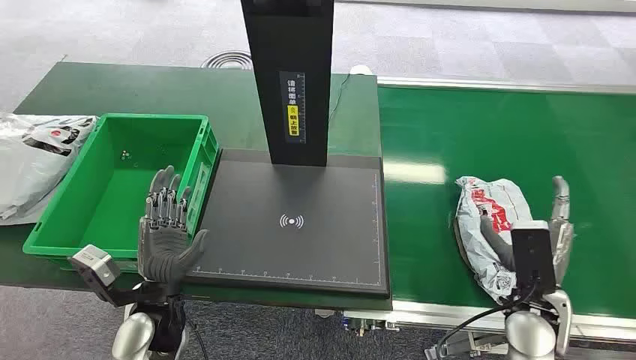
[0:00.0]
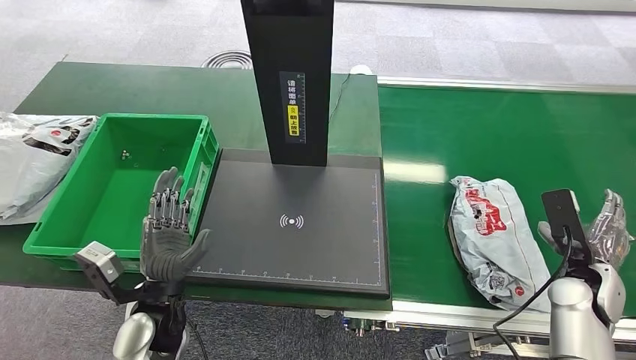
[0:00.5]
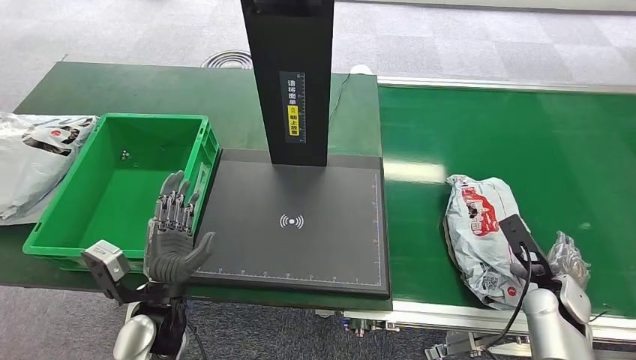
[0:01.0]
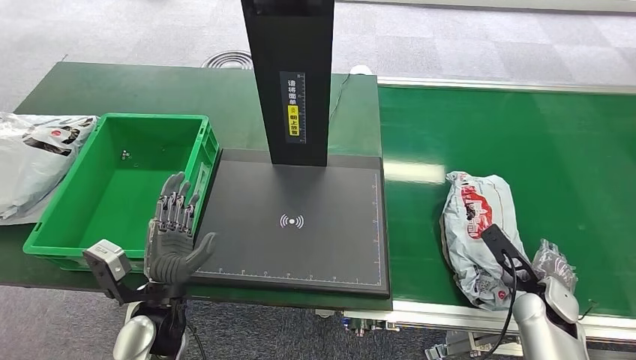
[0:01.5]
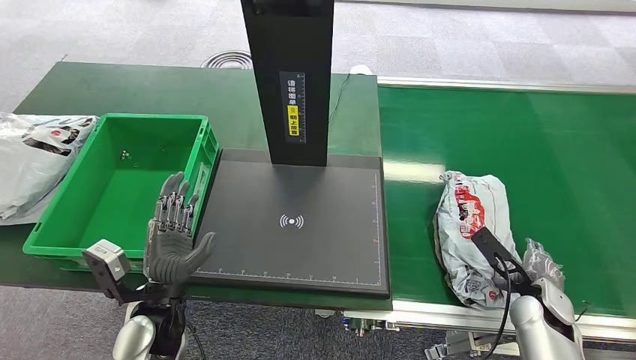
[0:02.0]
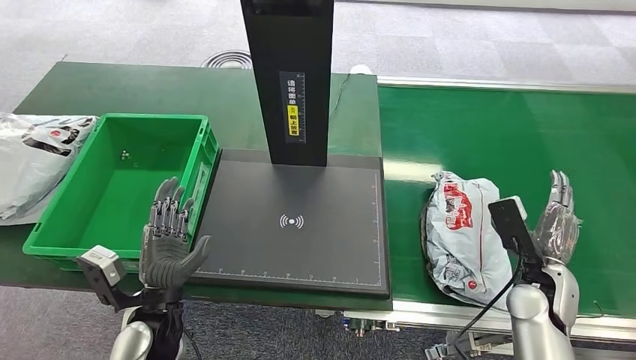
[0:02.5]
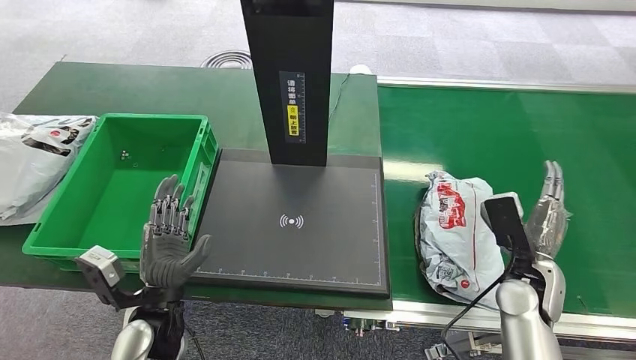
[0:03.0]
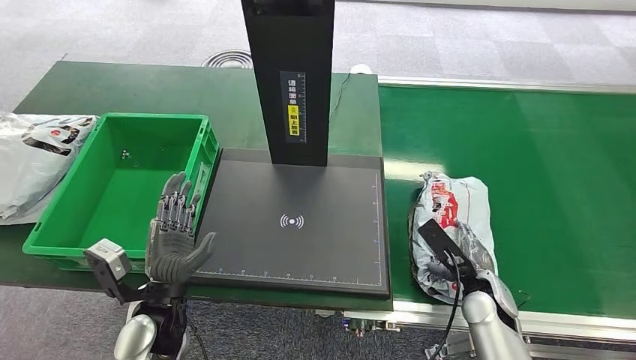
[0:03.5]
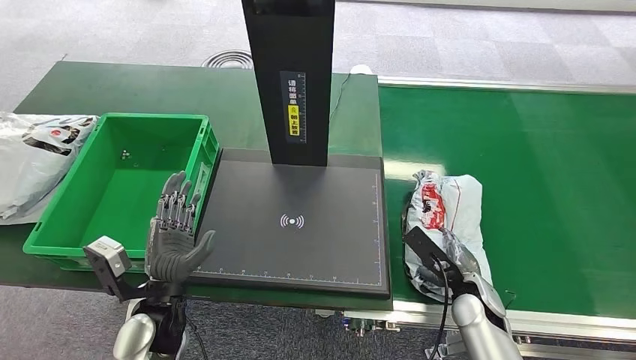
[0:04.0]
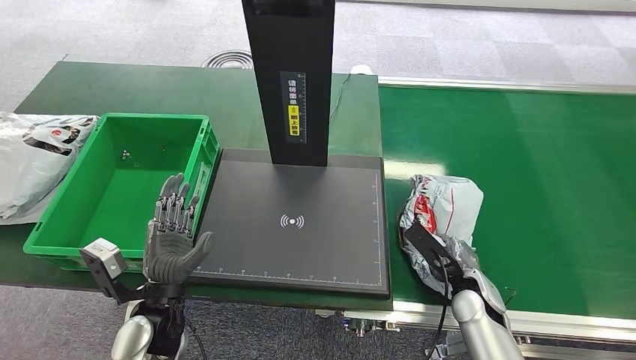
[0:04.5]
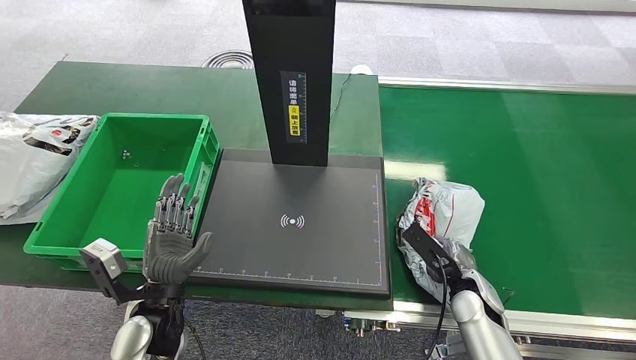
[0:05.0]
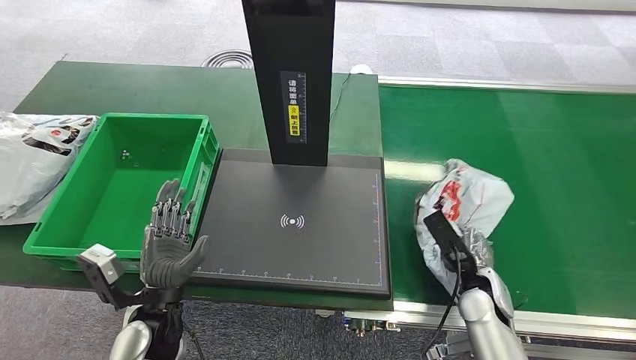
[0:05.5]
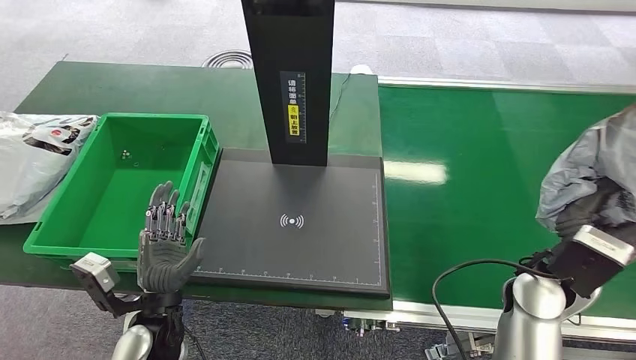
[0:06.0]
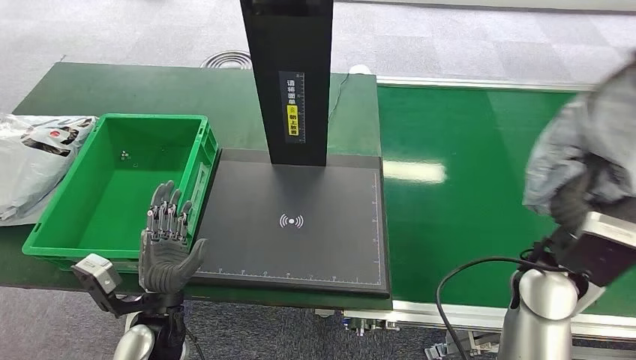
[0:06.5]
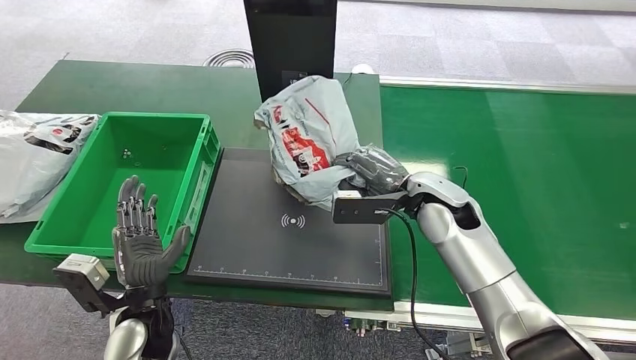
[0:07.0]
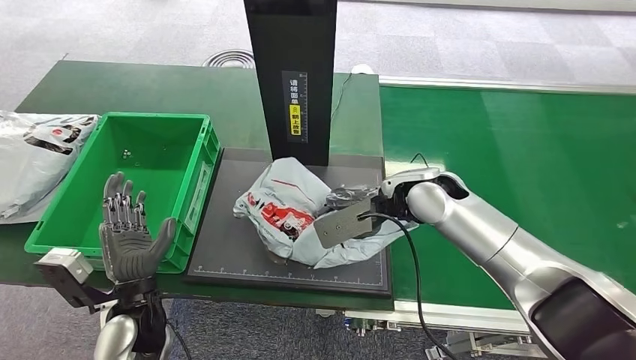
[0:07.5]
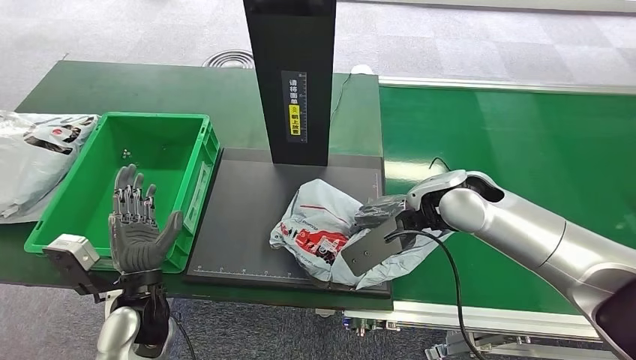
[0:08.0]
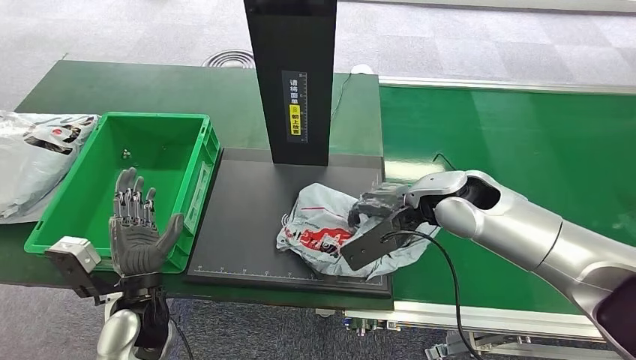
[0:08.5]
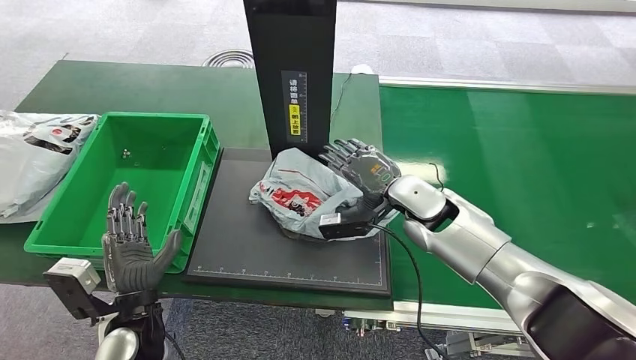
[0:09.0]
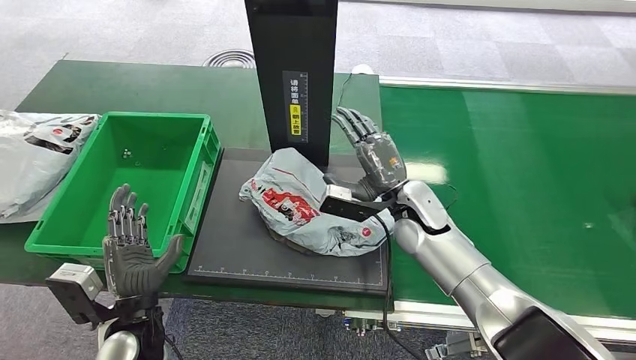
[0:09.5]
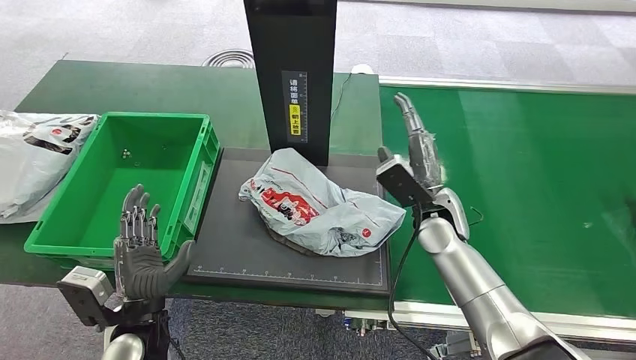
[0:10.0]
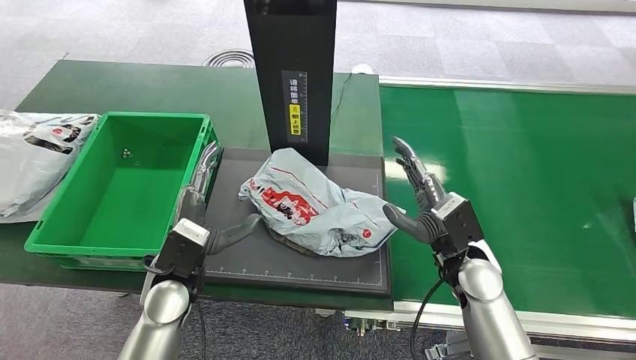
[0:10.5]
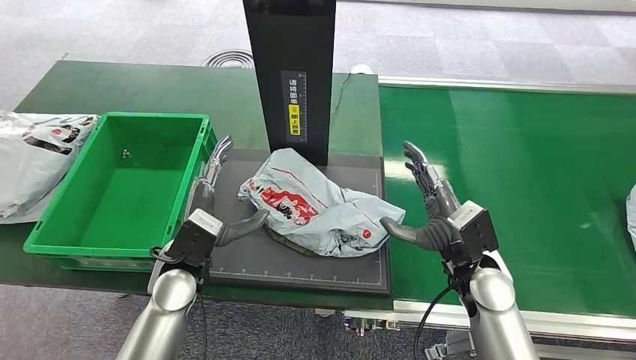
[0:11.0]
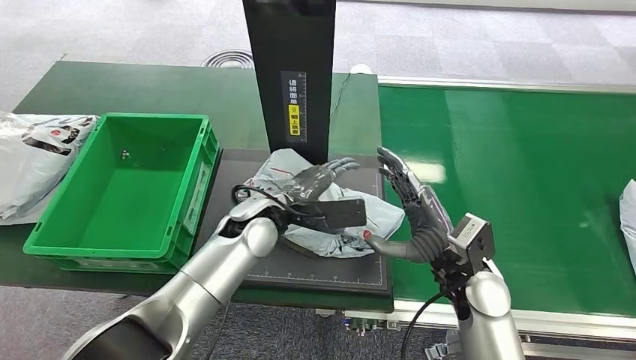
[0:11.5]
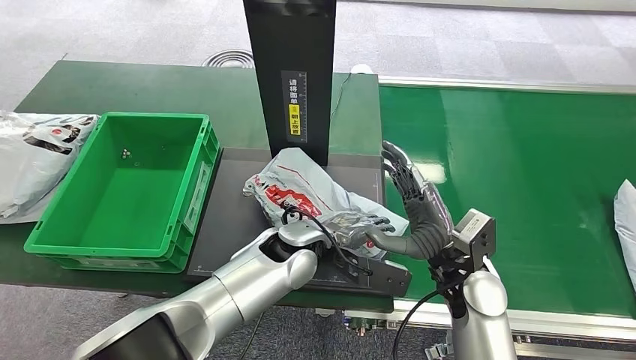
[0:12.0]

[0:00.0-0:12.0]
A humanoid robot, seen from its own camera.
Step, 0:00.0 to 0:05.5: Pick up the package from the conveyor belt.
Step, 0:06.0 to 0:10.5: Place the package onto the inbound machine.
0:02.0 to 0:04.0: The right hand goes some 10 cm to the left.
0:04.0 to 0:06.0: The right hand shifts about 15 cm upward.

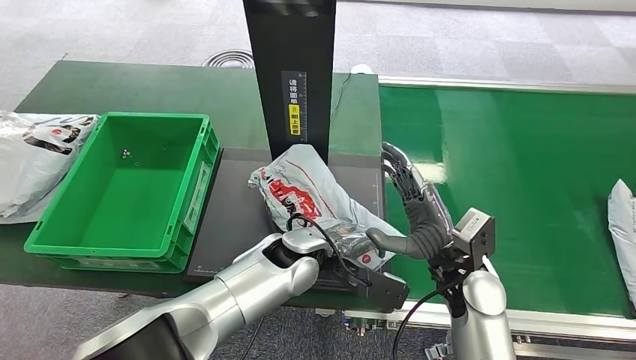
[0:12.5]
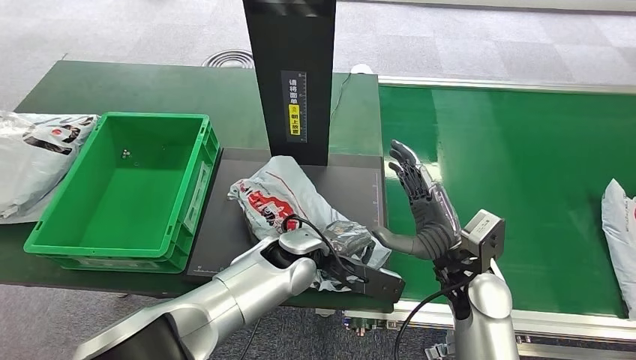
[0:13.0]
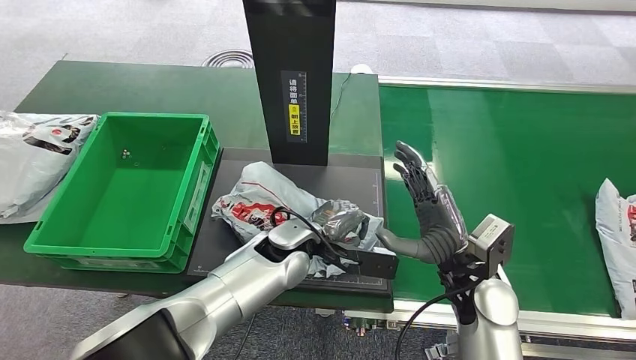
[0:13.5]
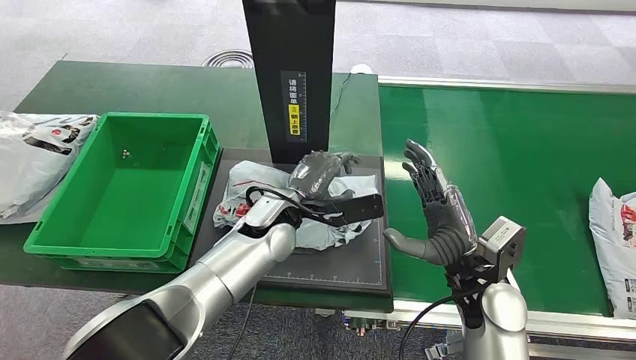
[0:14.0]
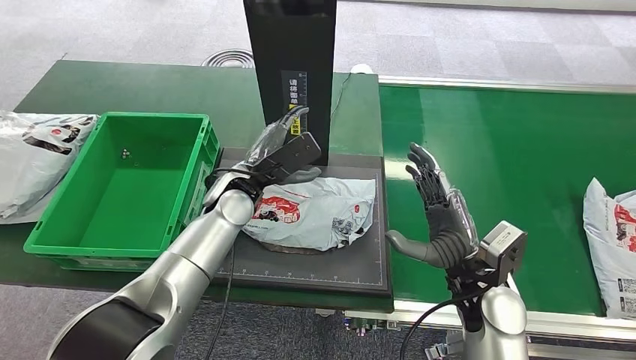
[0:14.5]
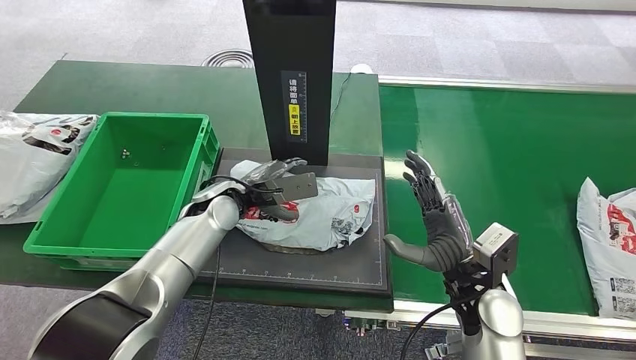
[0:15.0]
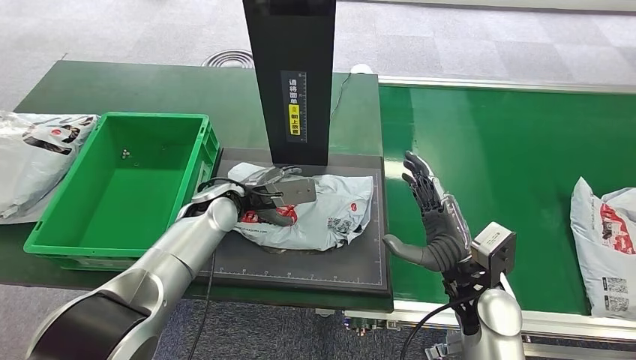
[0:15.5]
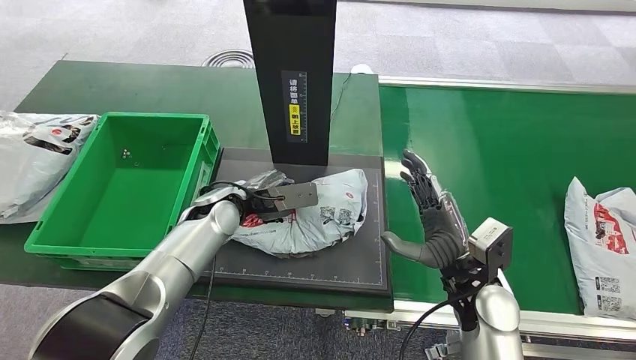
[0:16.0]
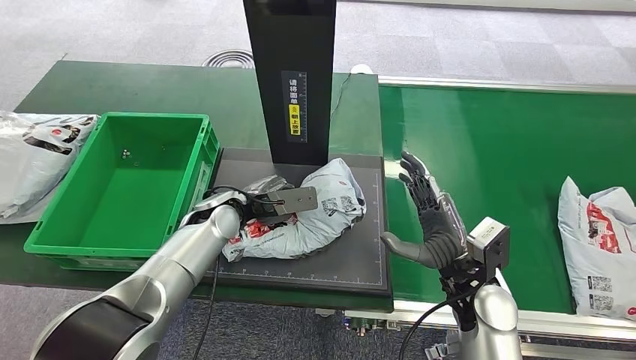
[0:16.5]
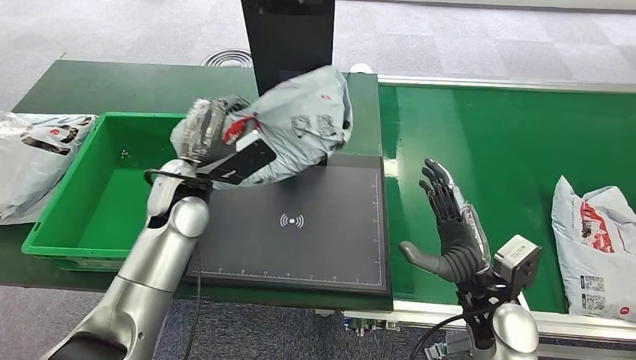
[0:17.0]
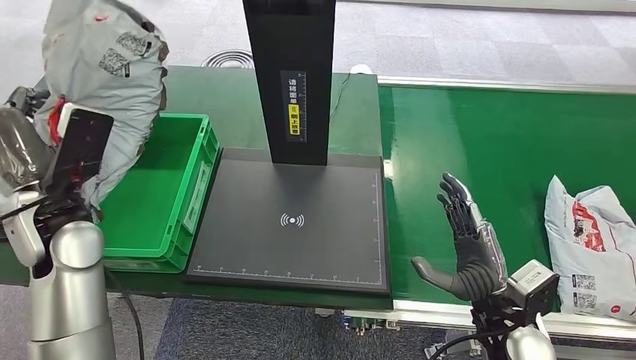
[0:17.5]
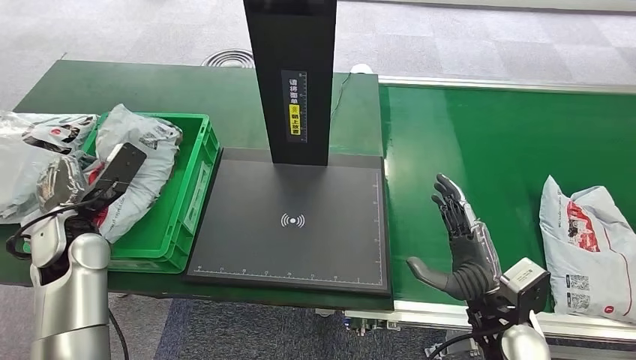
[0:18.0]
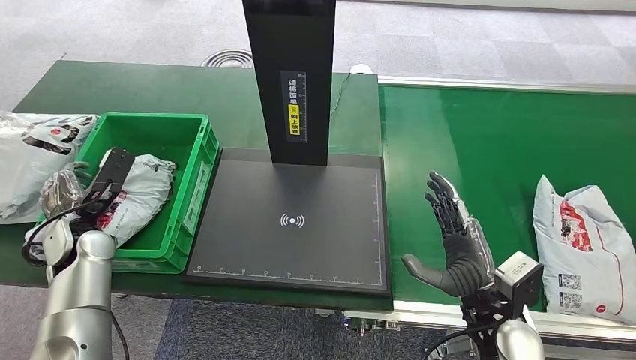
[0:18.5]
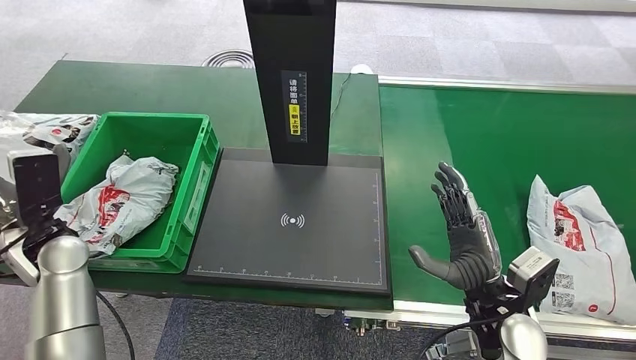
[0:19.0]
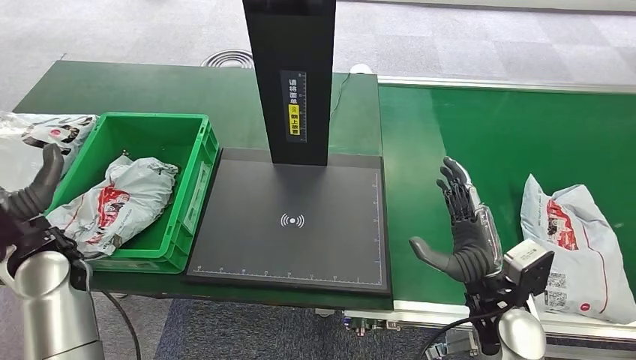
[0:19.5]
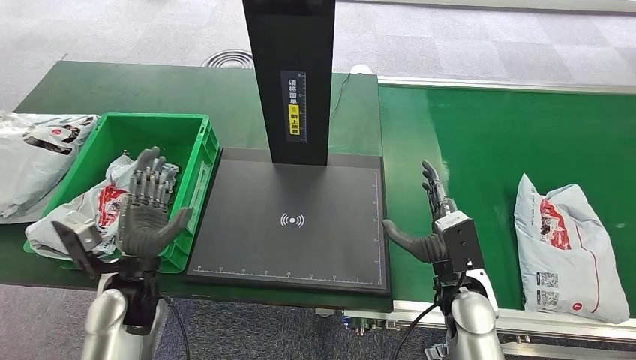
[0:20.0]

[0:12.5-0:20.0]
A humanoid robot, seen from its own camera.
Step, 0:12.5 to 0:16.5: Pick up the package from the inbound machine.
Step, 0:17.0 to 0:20.0: Place the package into the parcel locker.
0:14.5 to 0:16.5: The left hand heads downward, covering roughly 5 cm.
